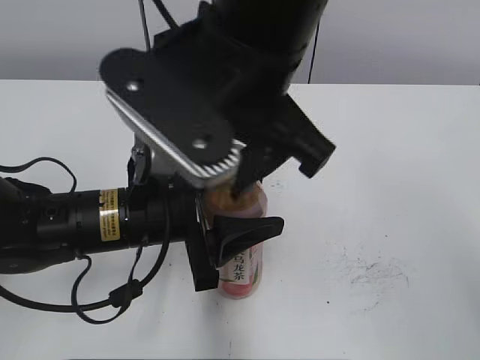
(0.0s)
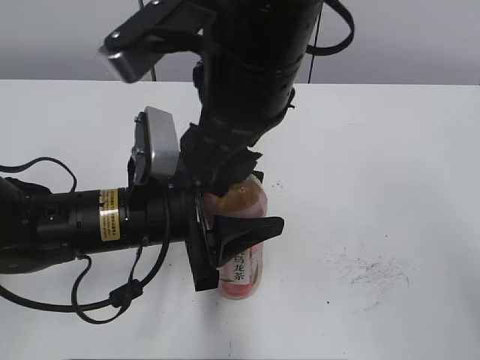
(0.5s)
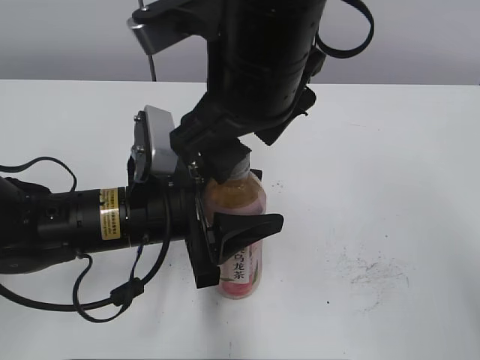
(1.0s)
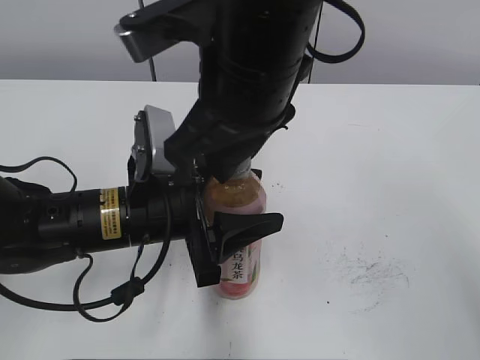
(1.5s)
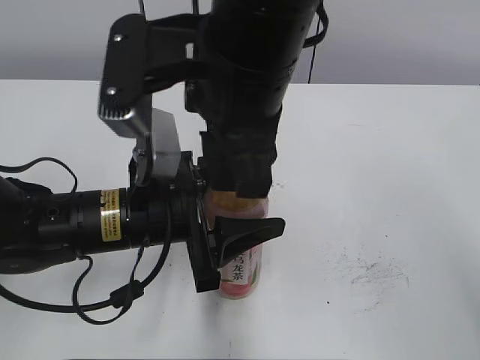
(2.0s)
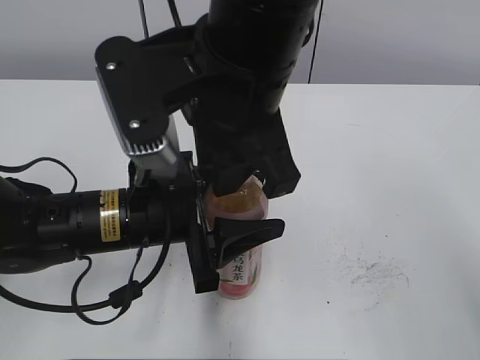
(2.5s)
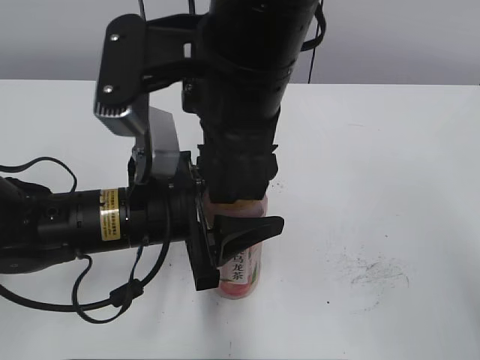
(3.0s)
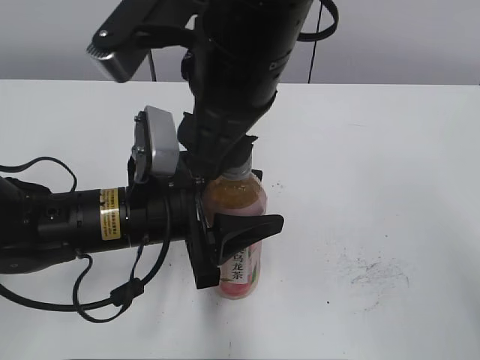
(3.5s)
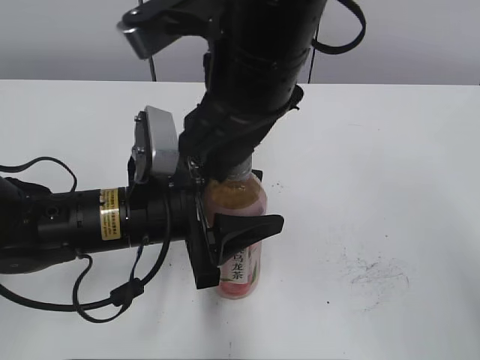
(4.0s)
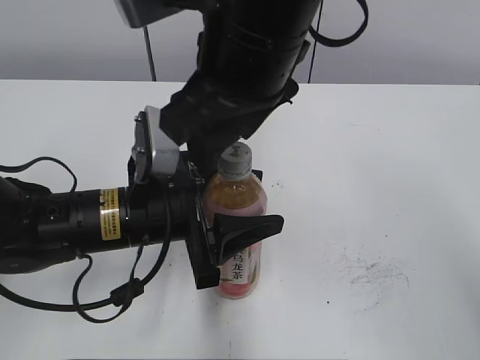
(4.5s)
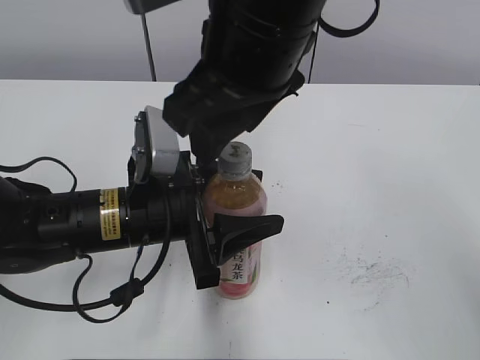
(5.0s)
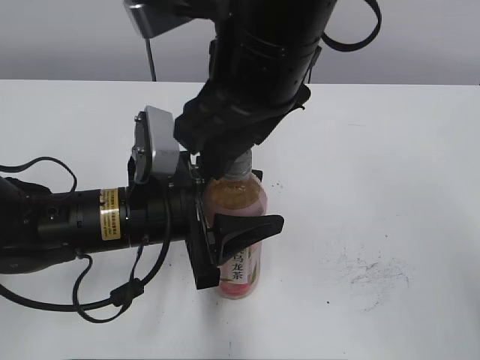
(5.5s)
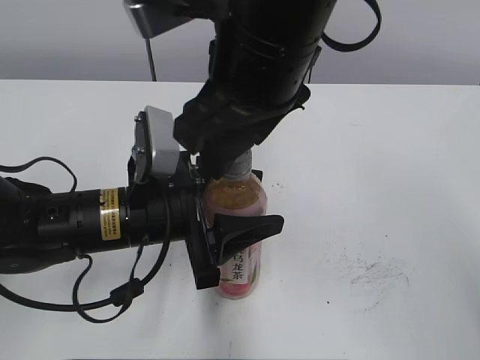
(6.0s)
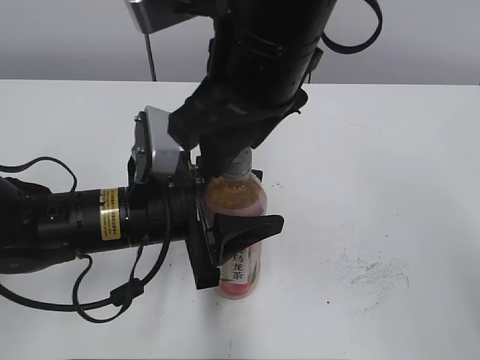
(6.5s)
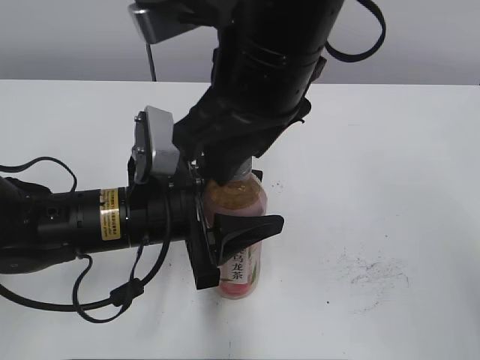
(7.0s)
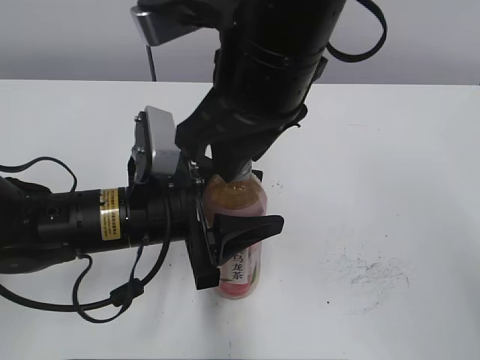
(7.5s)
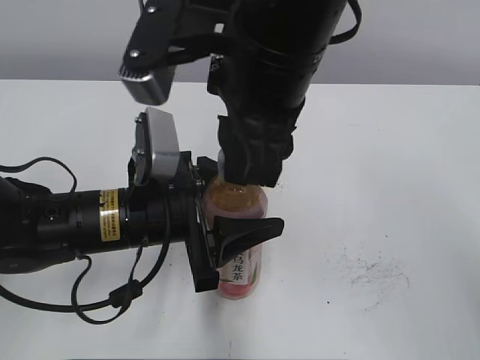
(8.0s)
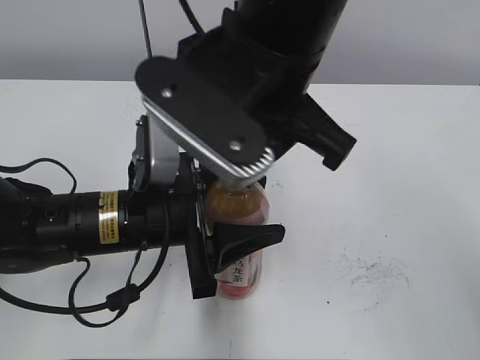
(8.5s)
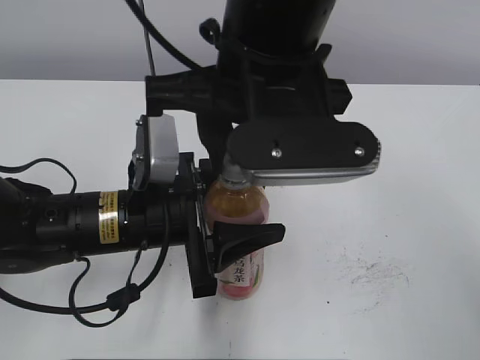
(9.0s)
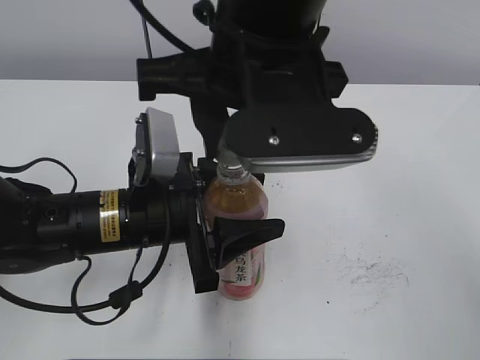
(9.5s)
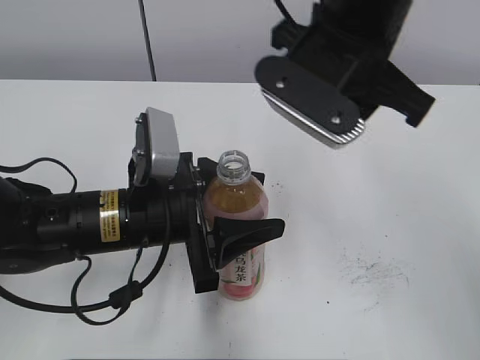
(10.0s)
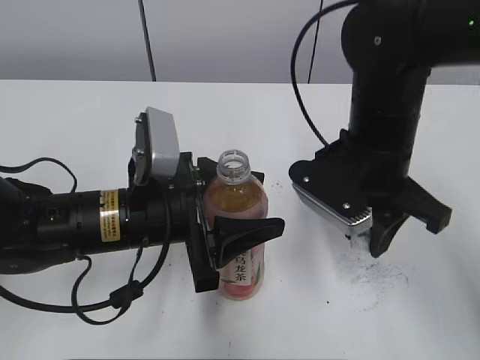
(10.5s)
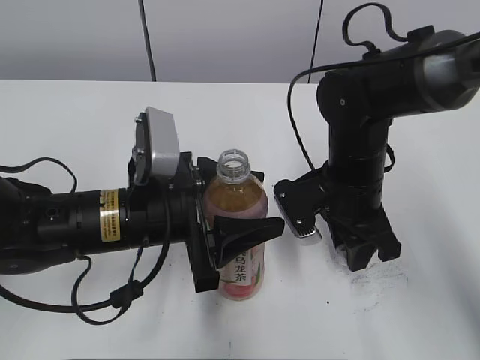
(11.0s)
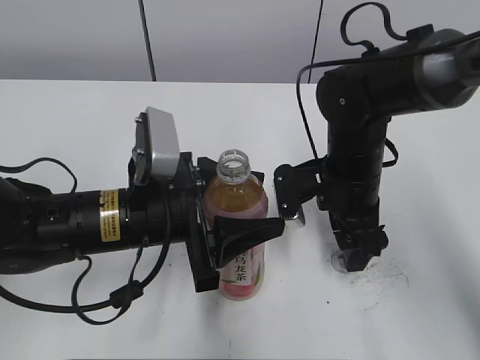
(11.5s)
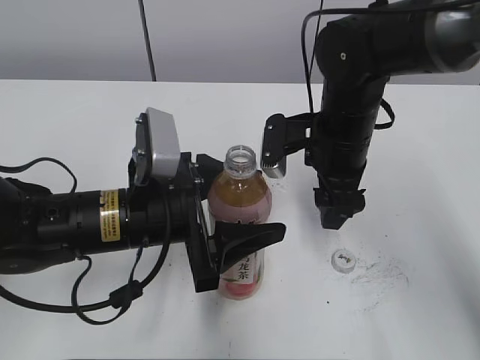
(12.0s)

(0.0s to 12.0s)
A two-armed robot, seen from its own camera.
Step, 10.0s - 11.5s: Place the bottle cap on the right.
0.0s - 2.0s: The right gripper closes its fingers.
2.0s - 4.0s: The right gripper opens up.
4.0s - 6.0s: The grippers stay close to where they were, moving slightly.
6.0s - 8.0s: The right gripper closes up.
8.0s - 10.0s: The right gripper shifts approximately 5 cm to the right.
10.0s - 12.0s: The right gripper heads downward, covering about 15 cm, and opens up. The left gripper opens.

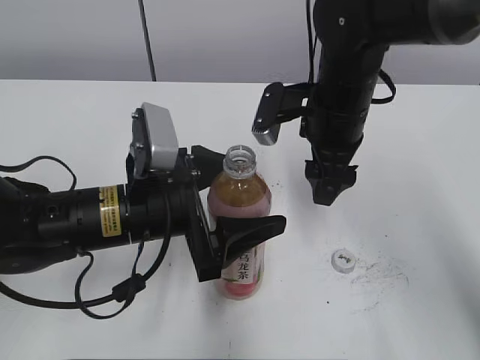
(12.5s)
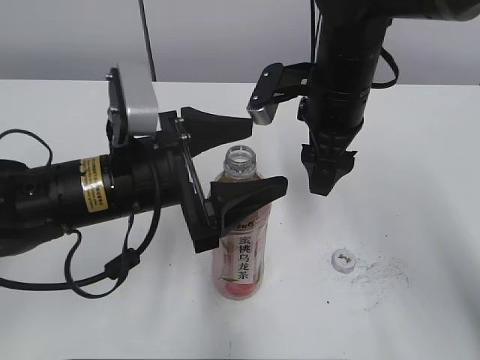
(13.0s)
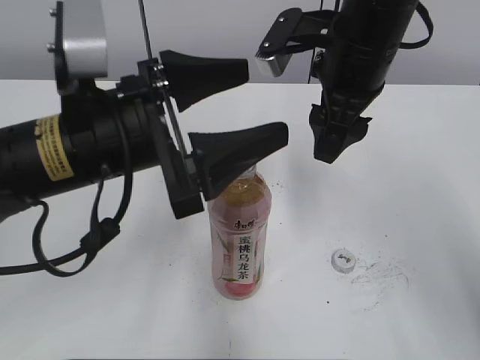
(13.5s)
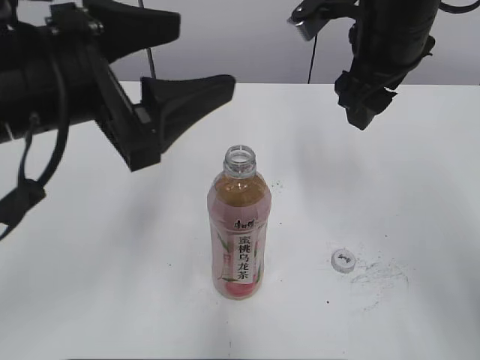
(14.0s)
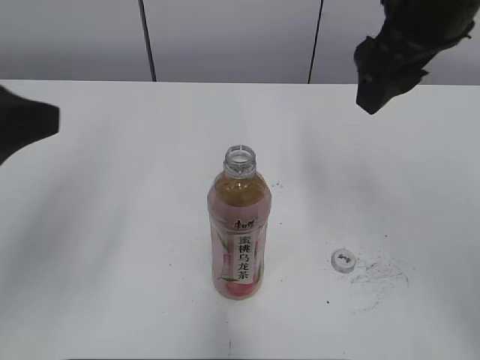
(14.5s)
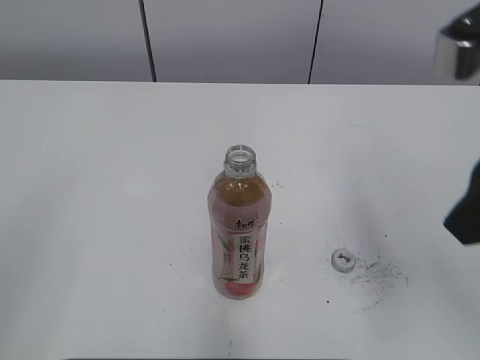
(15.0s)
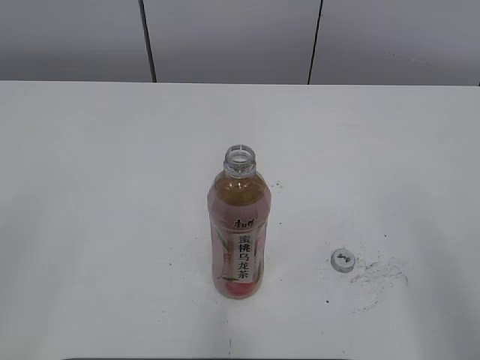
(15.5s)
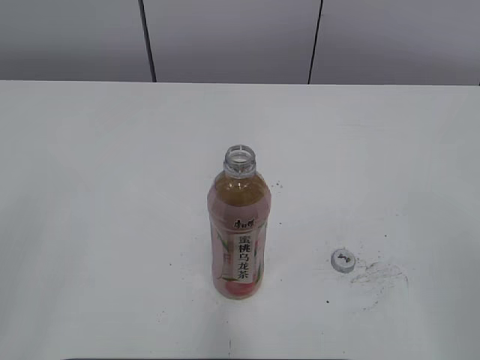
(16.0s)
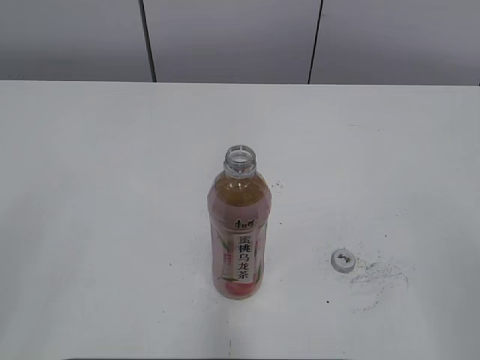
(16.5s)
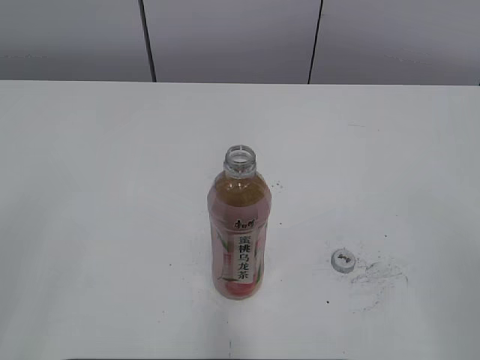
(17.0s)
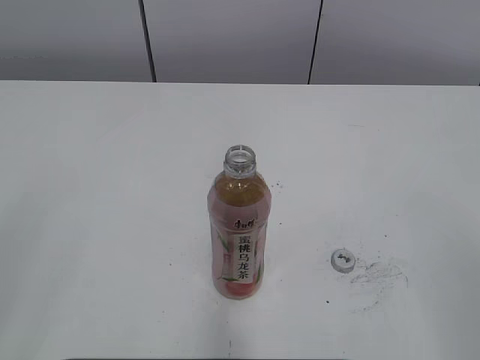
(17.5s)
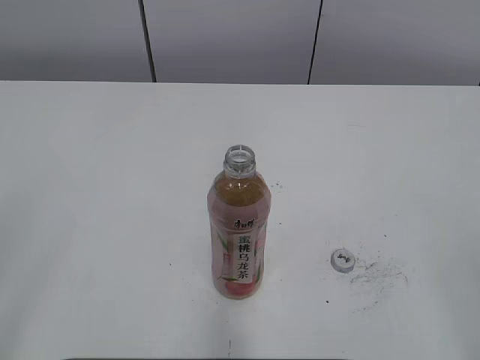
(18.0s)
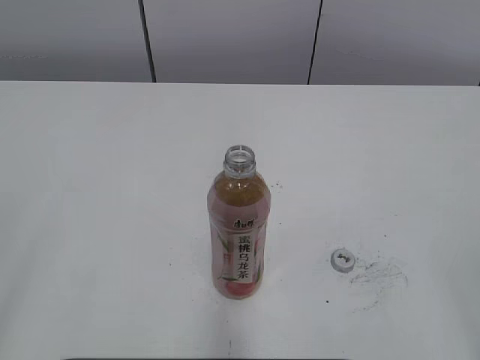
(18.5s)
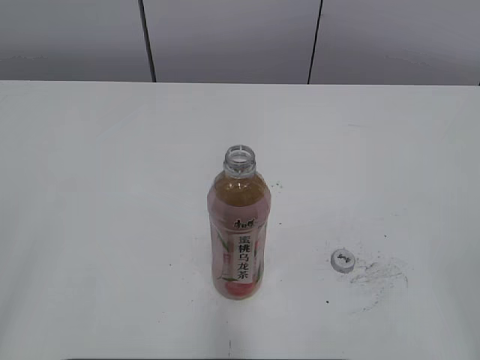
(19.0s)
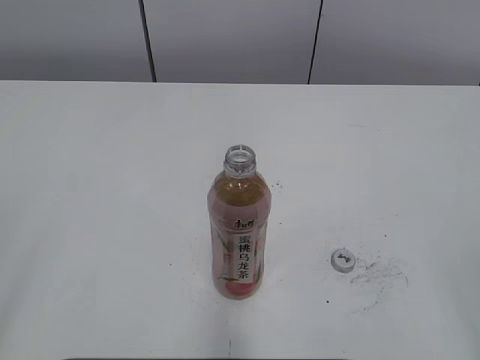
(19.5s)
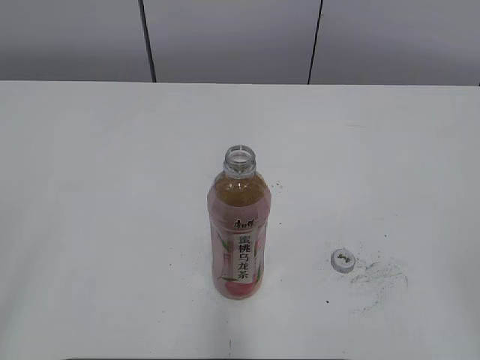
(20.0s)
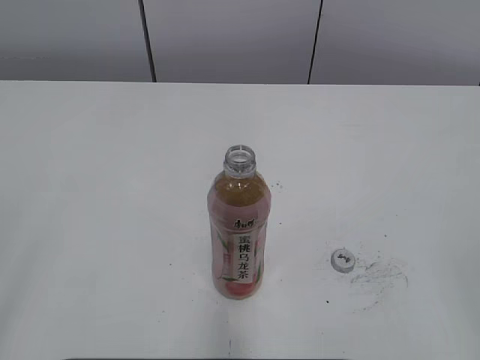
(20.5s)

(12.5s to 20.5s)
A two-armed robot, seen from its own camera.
Step, 12.5s - 13.5s: Place the Peach Oolong Tea with the left hand.
12.5s - 14.5s: The right gripper shifts roughly 15 cm upward; the left gripper heads upward, to the left and backward, covering roughly 20 cm, and closes.
14.5s - 16.5s: The right gripper travels backward and to the right by about 35 cm; the left gripper travels backward and to the left by approximately 15 cm.
18.5s - 20.5s: Both grippers stay put.

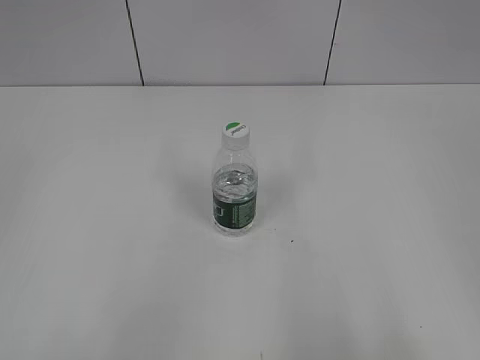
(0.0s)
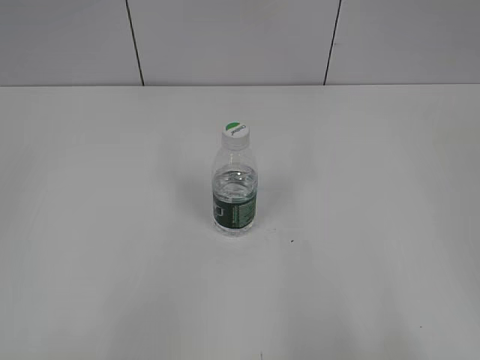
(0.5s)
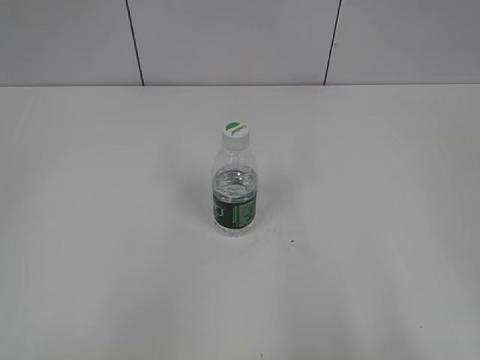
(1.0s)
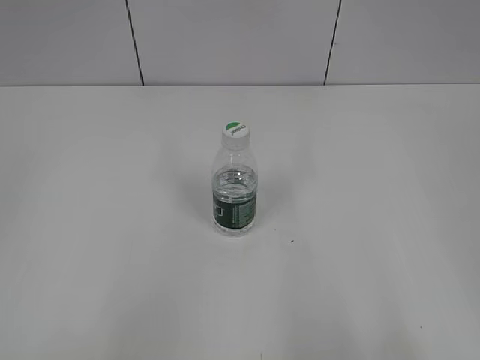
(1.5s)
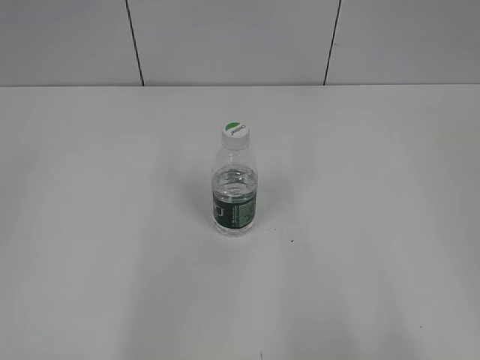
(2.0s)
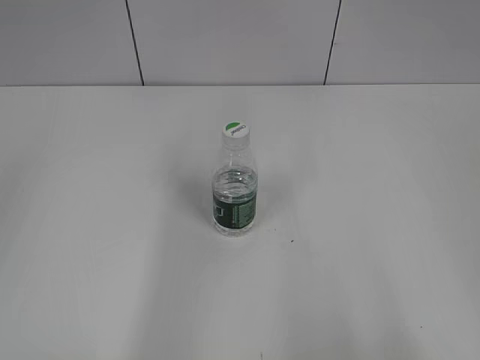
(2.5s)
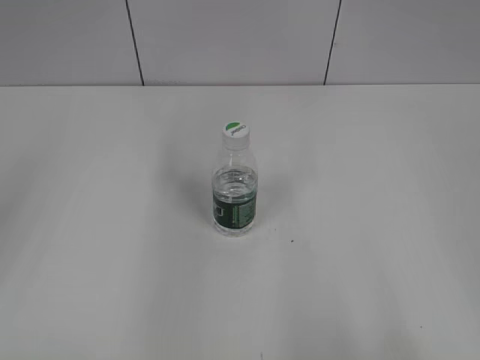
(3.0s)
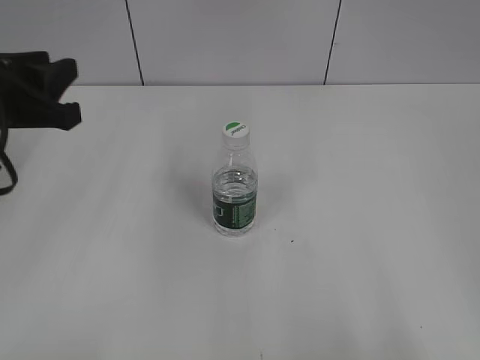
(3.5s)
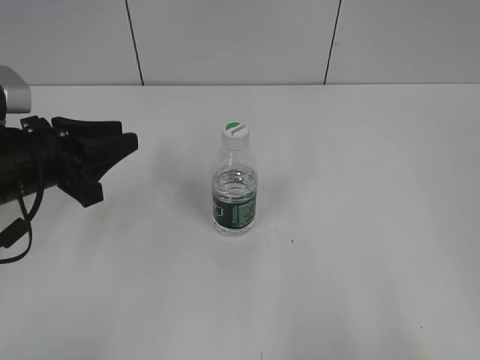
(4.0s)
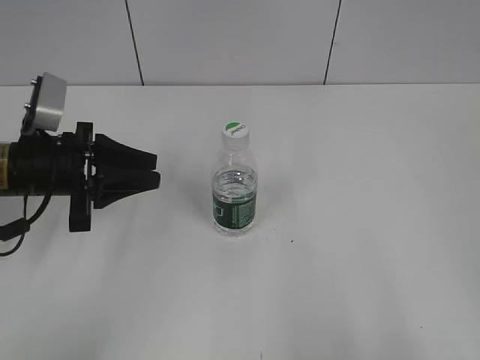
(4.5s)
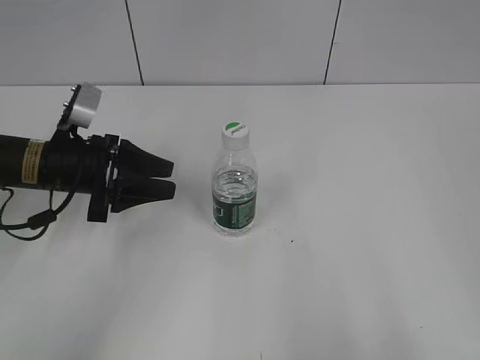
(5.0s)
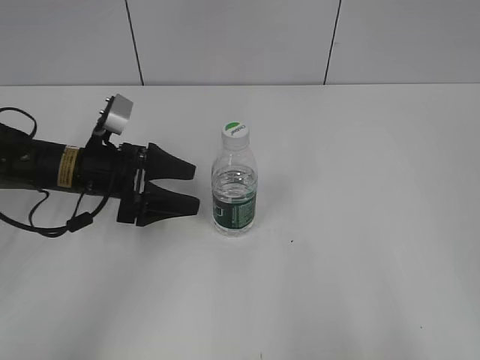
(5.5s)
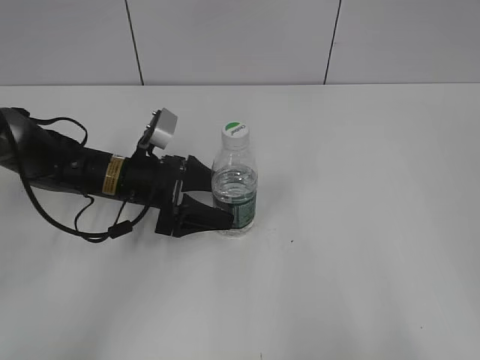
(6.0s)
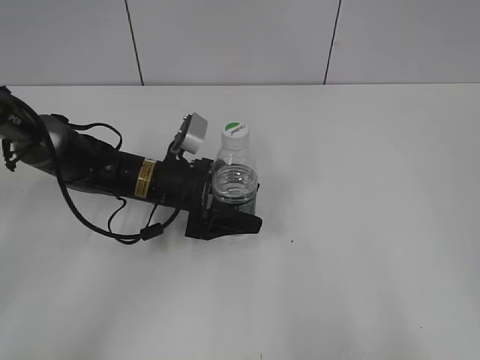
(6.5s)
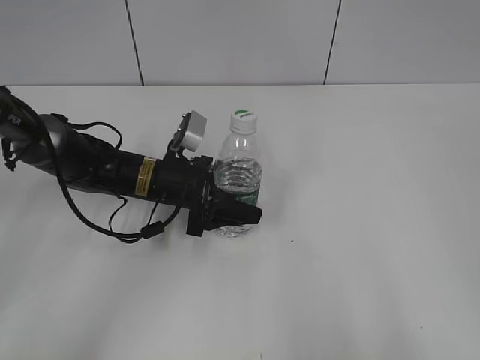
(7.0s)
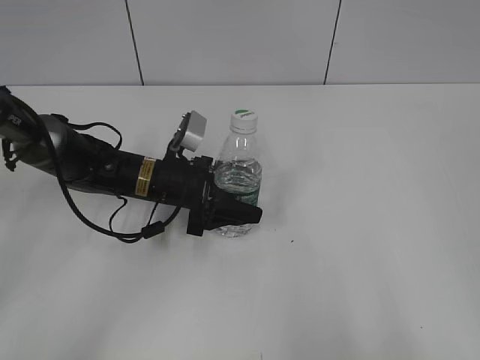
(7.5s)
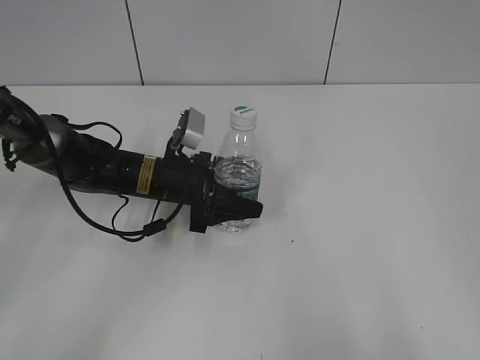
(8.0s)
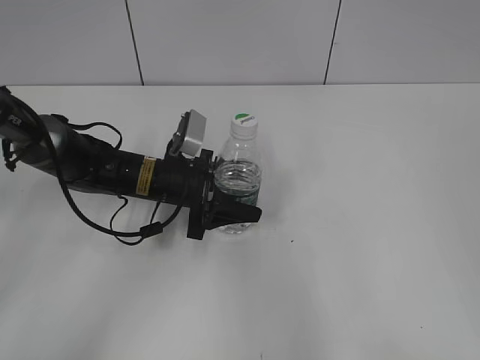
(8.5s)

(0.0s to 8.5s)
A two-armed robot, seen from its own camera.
Step, 0.0s - 6.5s: Grasp the bottle and move it to the center of the table with the left gripper.
2.0s - 4.0s: The left gripper is displaced forward and downward by roughly 30 cm.
4.0s - 6.5s: The left gripper is displaced to the right, downward and forward by approximately 20 cm, and opens its fingers.
6.5s - 8.5s: The left gripper closes its fingers.
